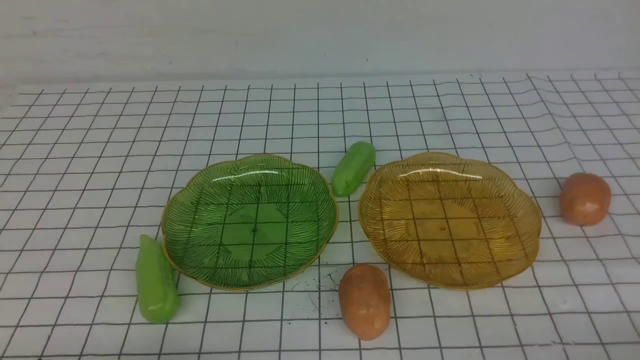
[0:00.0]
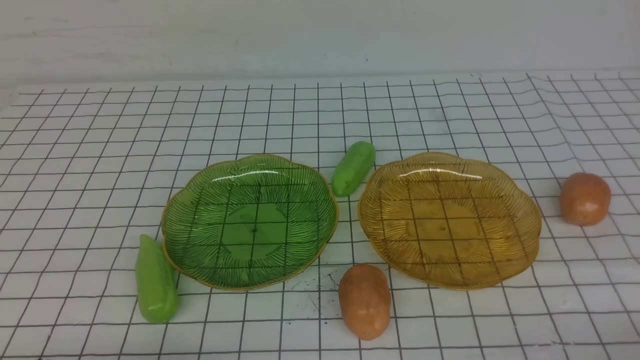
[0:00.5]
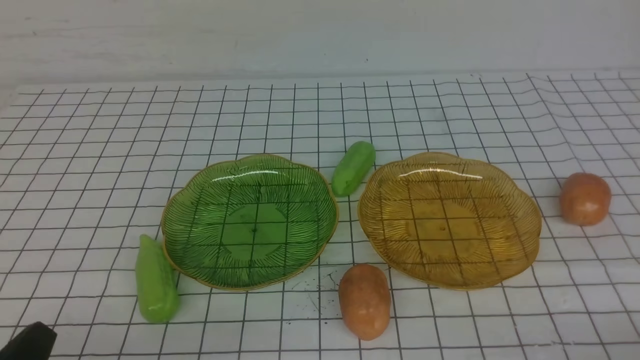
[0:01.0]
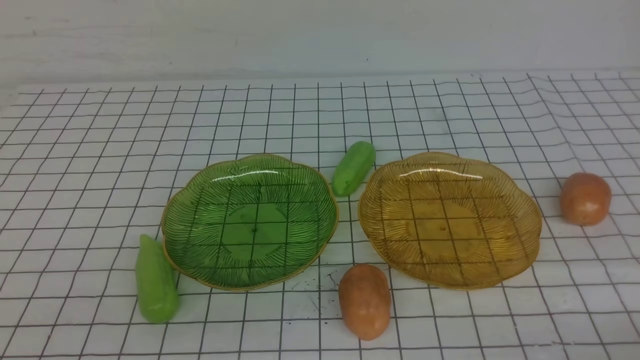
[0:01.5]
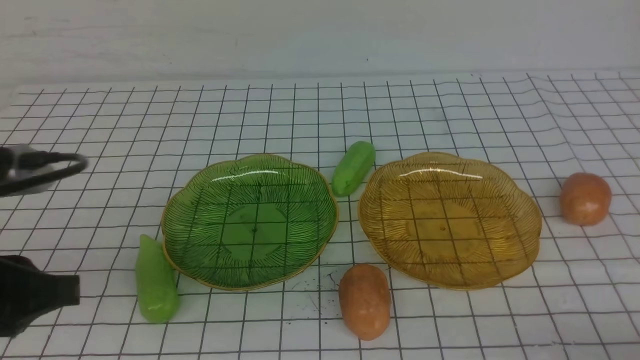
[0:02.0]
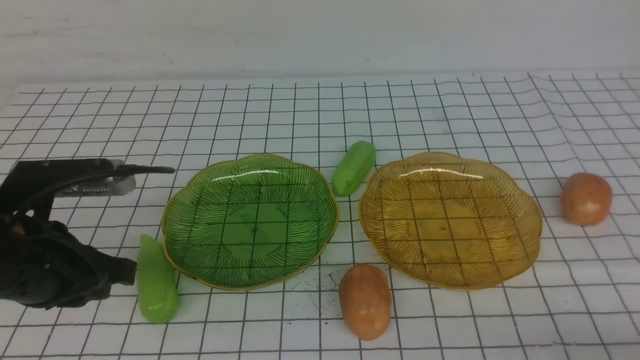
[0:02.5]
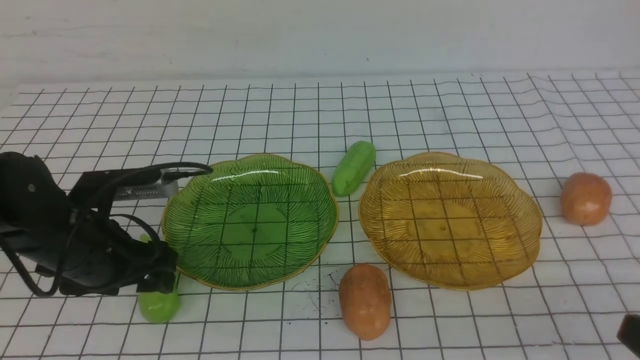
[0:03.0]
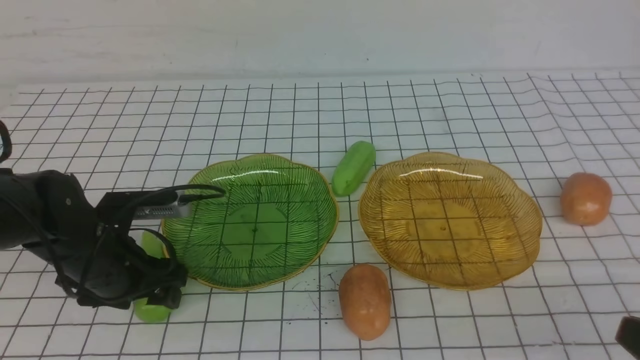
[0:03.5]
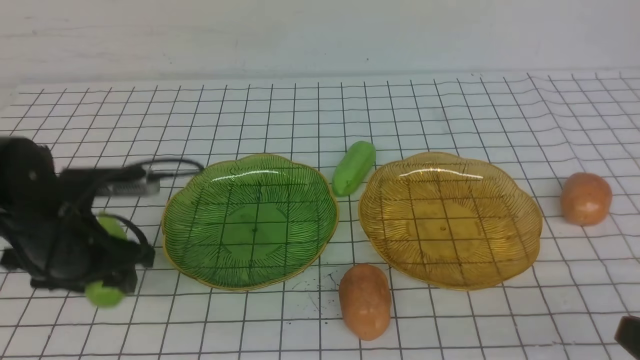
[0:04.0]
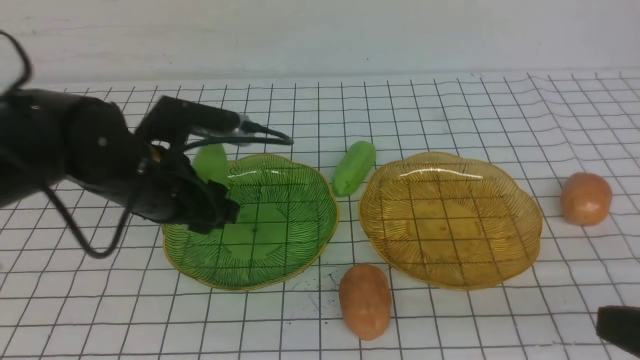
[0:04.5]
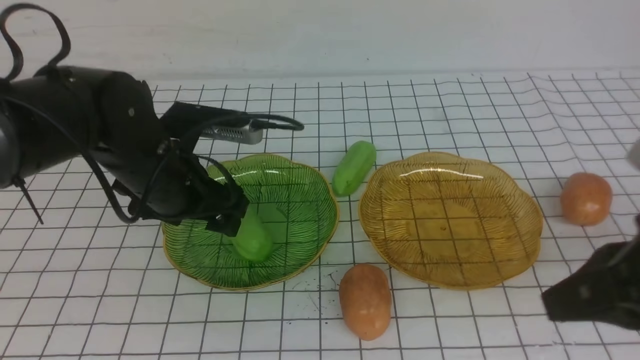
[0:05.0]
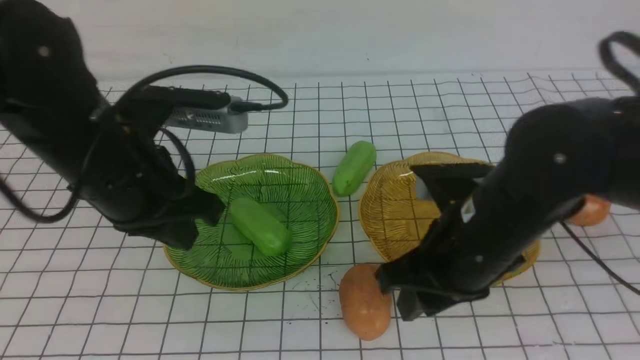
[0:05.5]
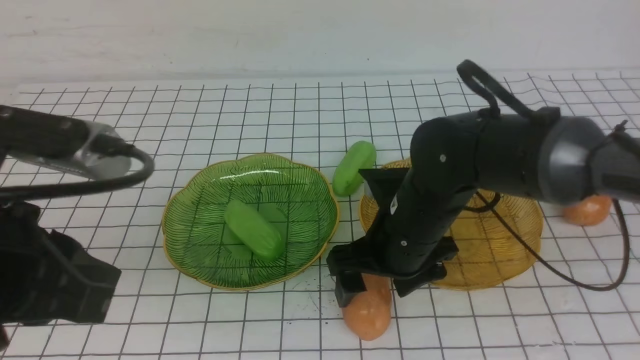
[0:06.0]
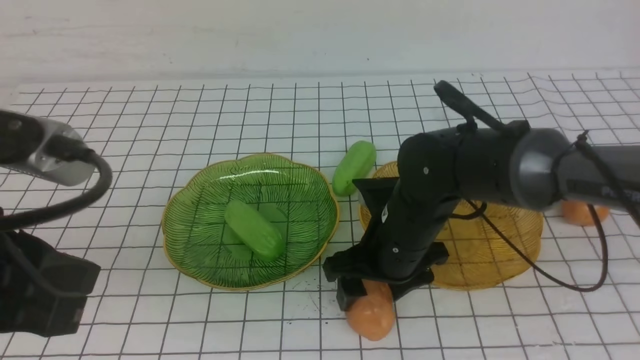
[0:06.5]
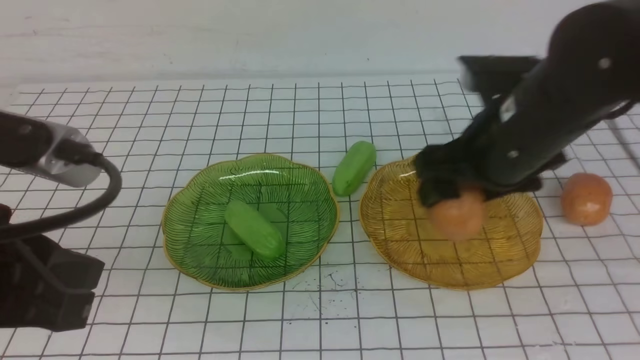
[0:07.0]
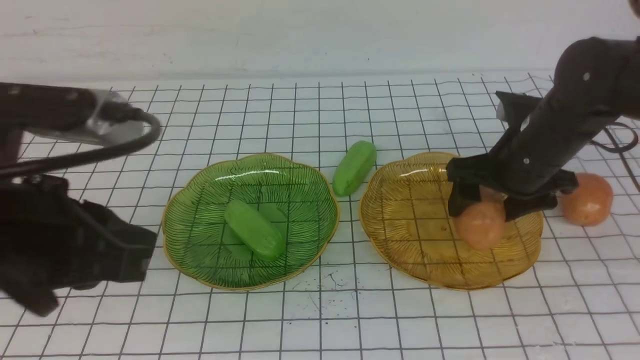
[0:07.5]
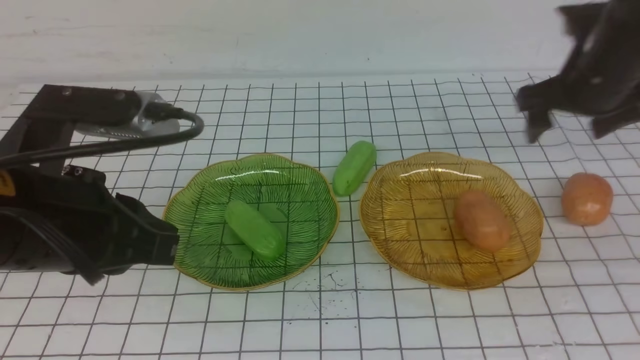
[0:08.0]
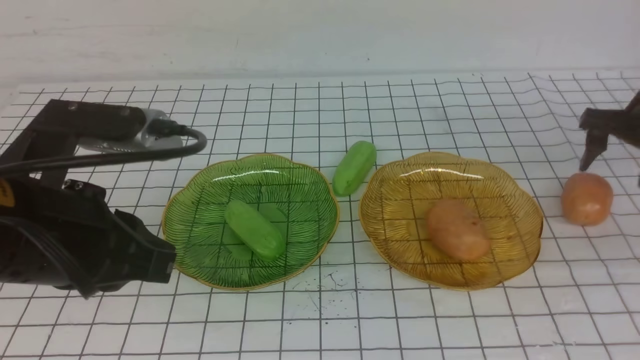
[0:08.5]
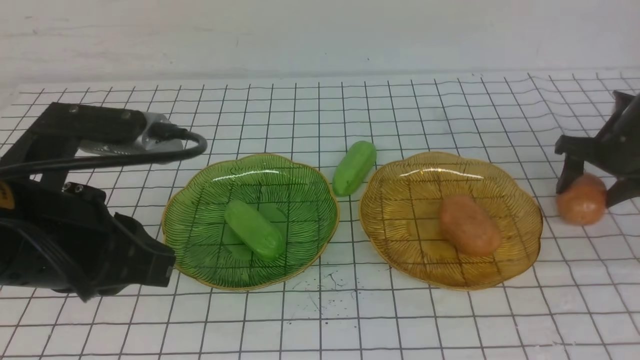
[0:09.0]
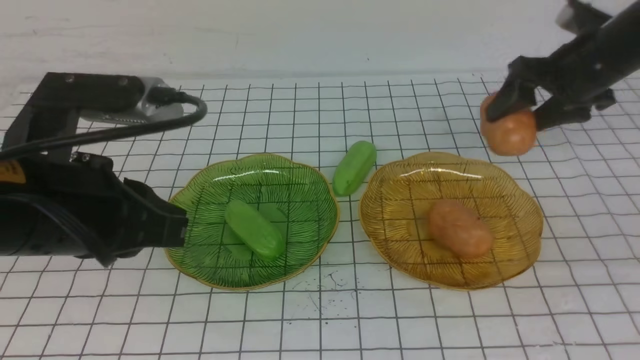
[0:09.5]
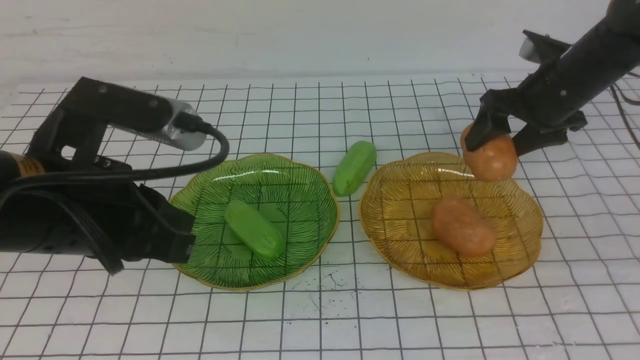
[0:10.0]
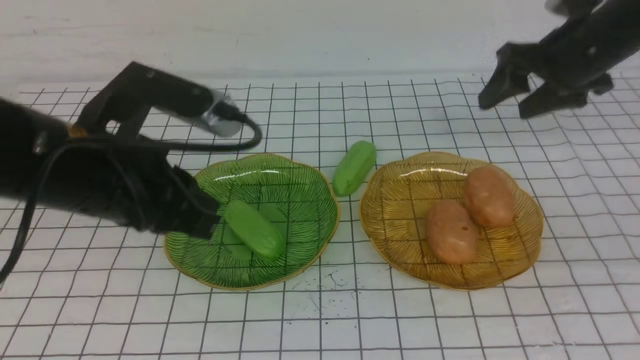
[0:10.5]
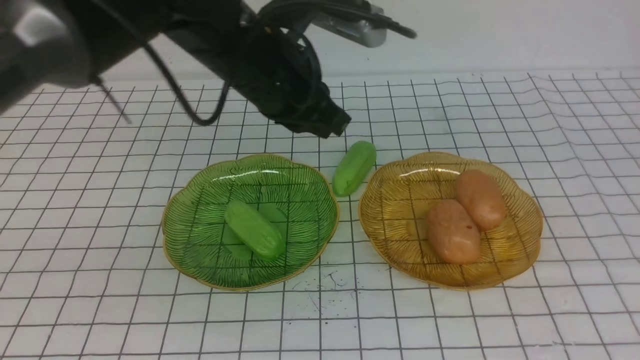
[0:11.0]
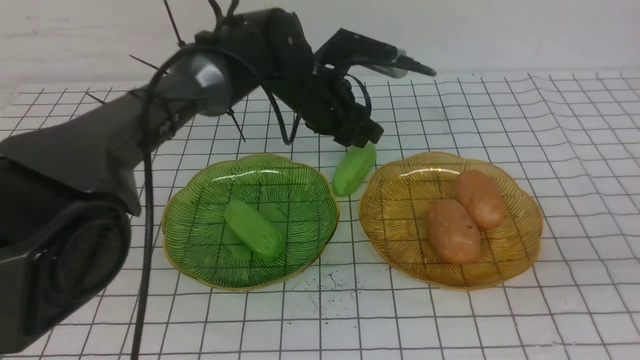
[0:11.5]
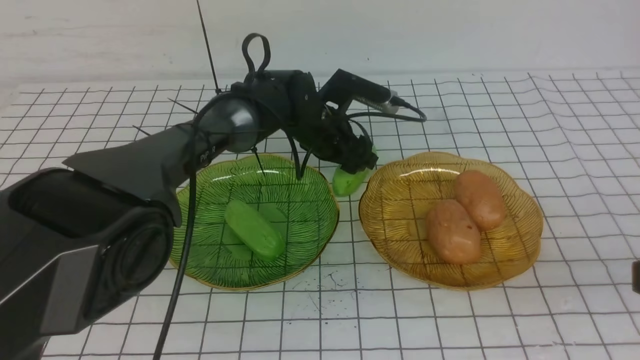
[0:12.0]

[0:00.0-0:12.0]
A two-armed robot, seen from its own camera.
Step, 0:00.0 to 0:05.0: use the left arm to grab a chayote and put it into the left plate.
Step, 0:05.5 to 0:10.0: Grab a potato with your right arm and put it on the right plate.
0:02.0 to 0:04.0: The right gripper shifts some 5 cm upward, while the left gripper goes roughly 20 cm forward and downward, and opens.
0:04.0 to 0:06.0: The left gripper goes some 20 cm upward and backward, and closes up. Meanwhile the right gripper moves forward and to the left, approximately 30 cm, and opens.
0:06.0 to 0:08.0: The right gripper heads to the right, forward and upward, covering approximately 20 cm.
0:08.0 to 0:10.0: The right gripper travels forward by some 5 cm, and travels to the right and back again, roughly 10 cm each way.
0:10.0 to 0:12.0: The left gripper moves forward, to the right and downward, roughly 35 cm, and opens up, while the right gripper is displaced backward by some 35 cm, and closes up.

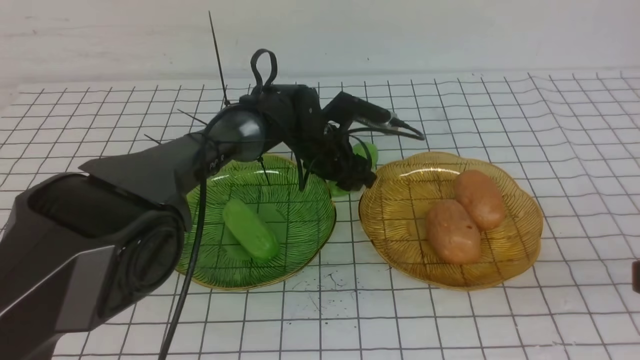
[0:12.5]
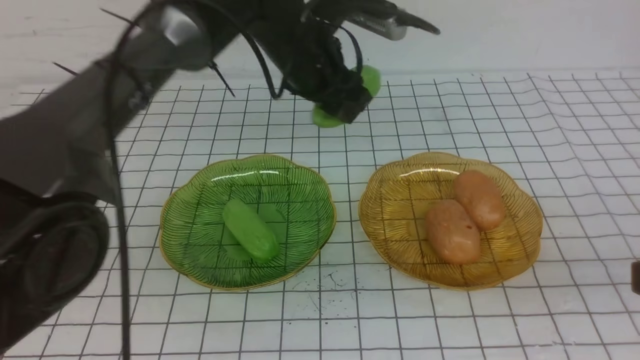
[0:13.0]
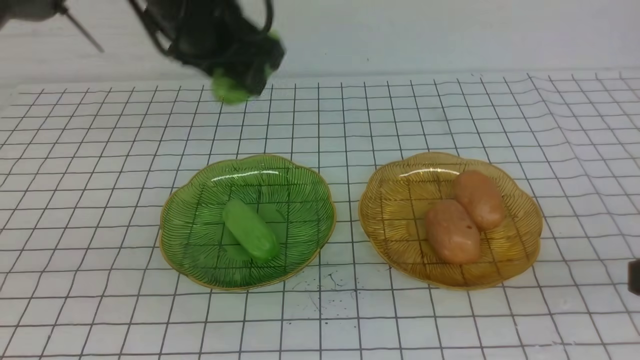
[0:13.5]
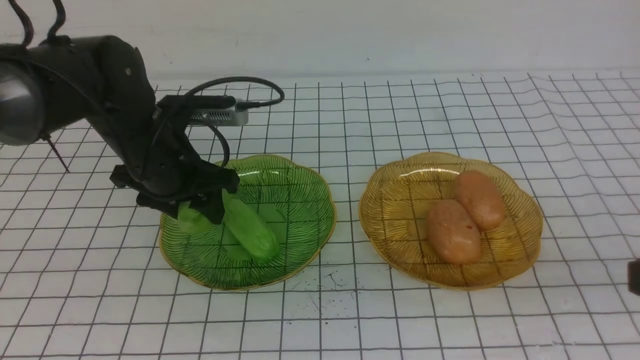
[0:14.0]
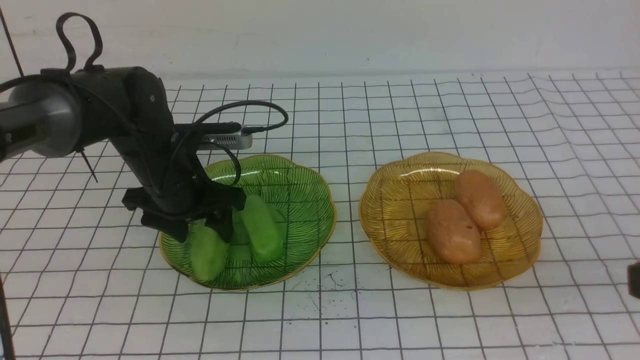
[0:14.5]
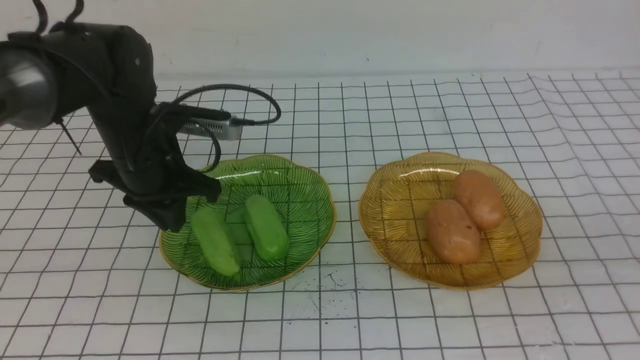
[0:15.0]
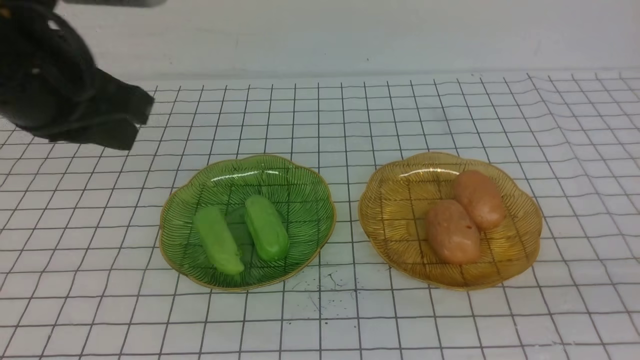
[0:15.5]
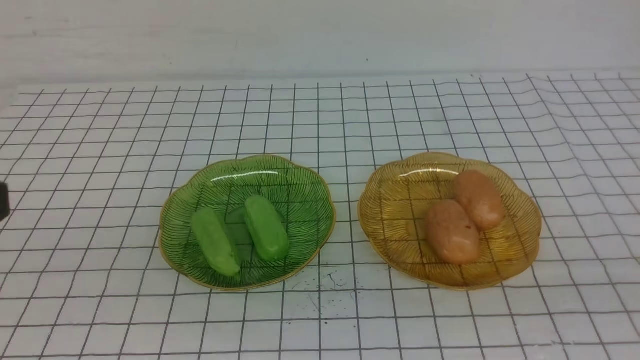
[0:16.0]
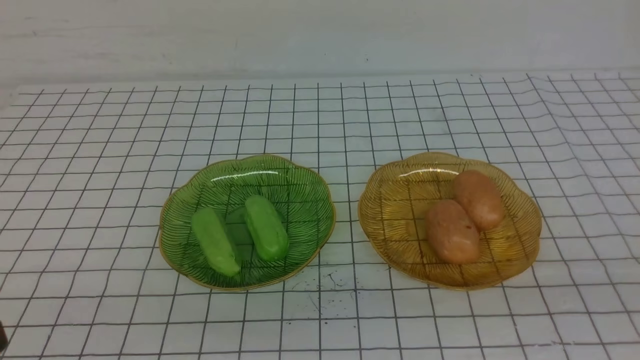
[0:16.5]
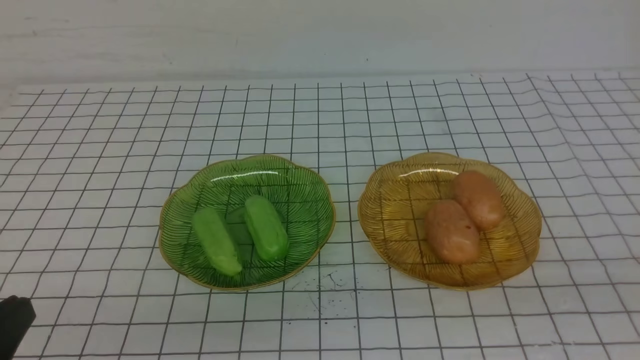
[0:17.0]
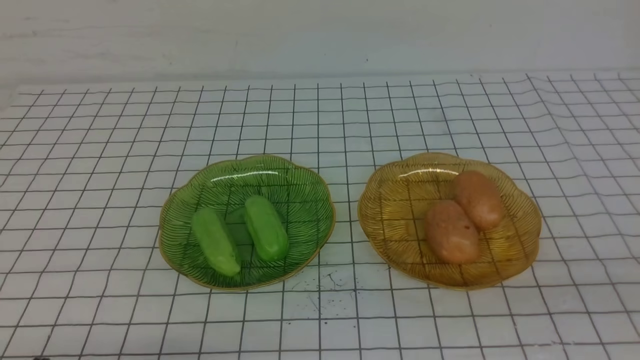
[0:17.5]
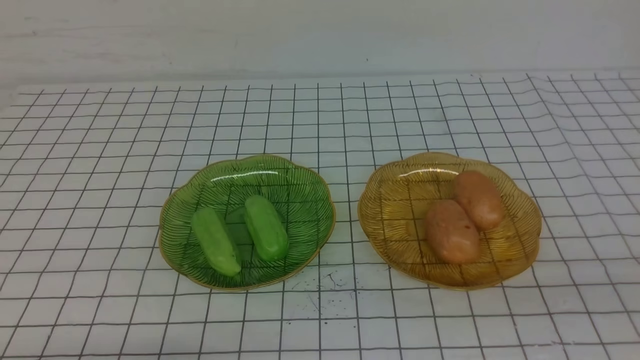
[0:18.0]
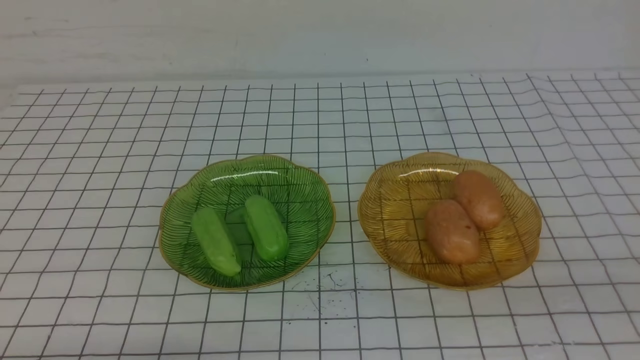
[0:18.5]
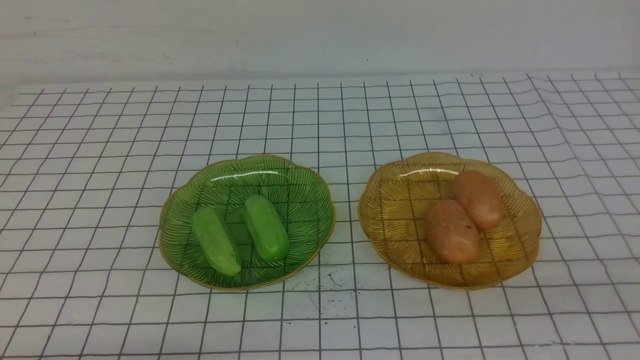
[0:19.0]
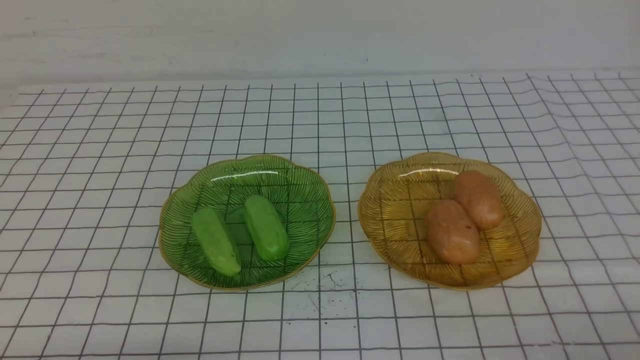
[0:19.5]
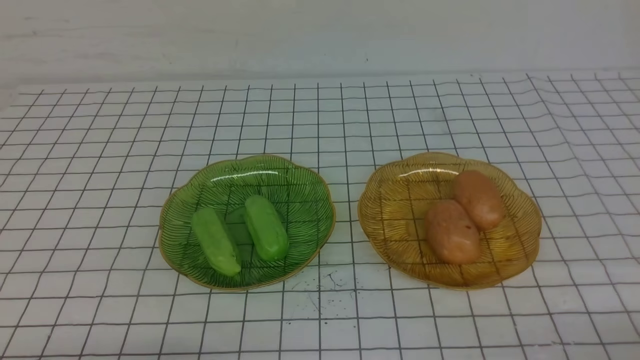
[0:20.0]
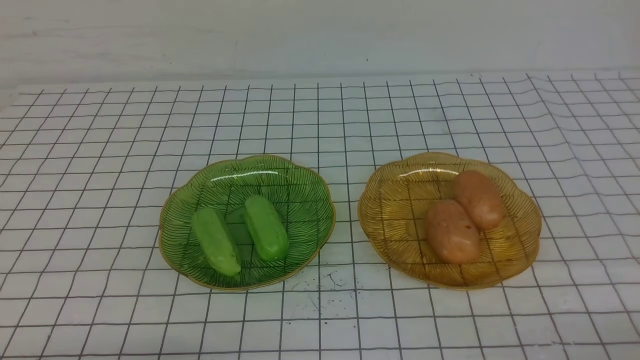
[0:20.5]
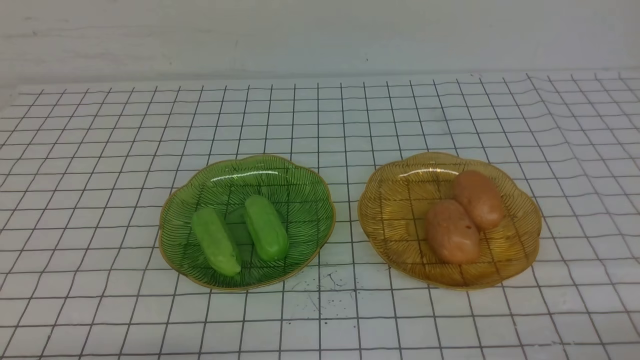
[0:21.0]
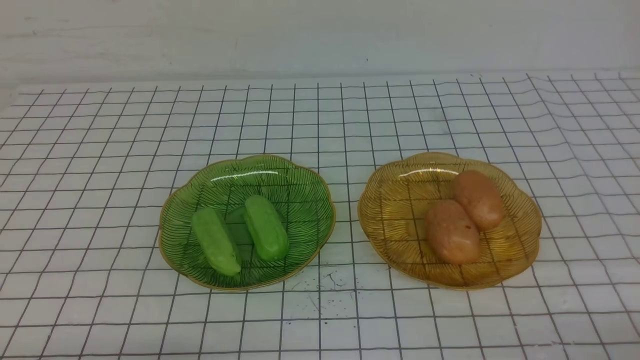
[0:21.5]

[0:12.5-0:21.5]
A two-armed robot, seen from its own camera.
Step, 0:12.5 to 0:14.5: use the left arm to grab a chayote and put it into the left plate.
0:12.5 to 0:14.5: The left gripper heads to the left and backward, covering some 20 cm, and travels upward and back again, roughly 20 cm each way.
0:14.5 to 0:17.0: The left gripper is displaced backward by roughly 35 cm, and closes its fingers, while the right gripper travels backward by approximately 5 cm.
0:17.0 to 0:19.5: The left gripper moves downward, roughly 10 cm.
